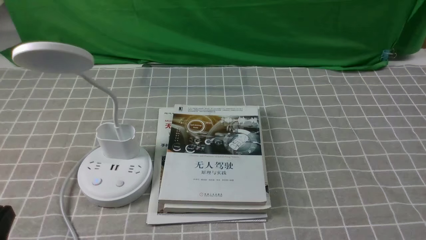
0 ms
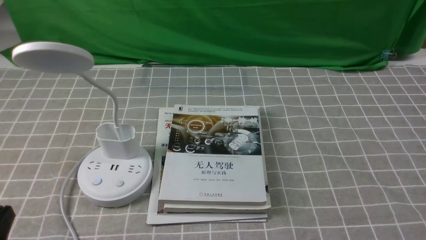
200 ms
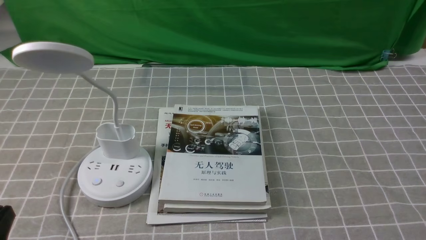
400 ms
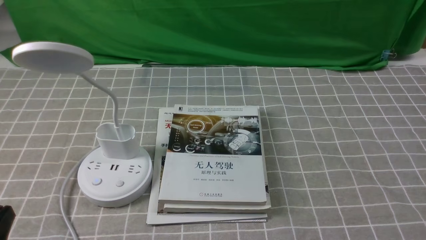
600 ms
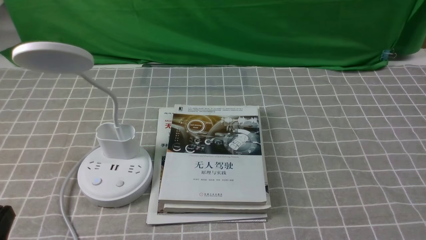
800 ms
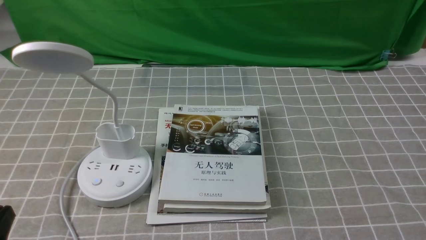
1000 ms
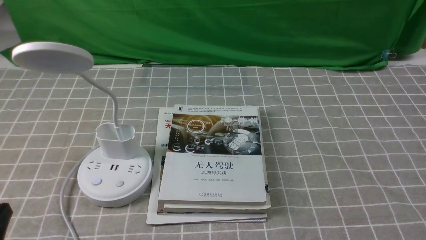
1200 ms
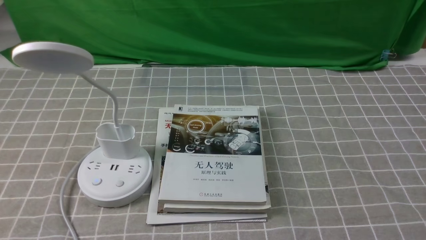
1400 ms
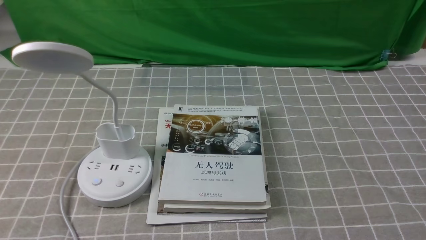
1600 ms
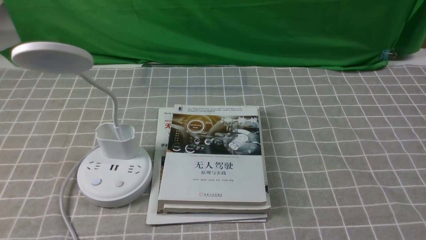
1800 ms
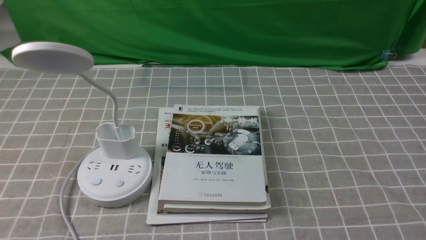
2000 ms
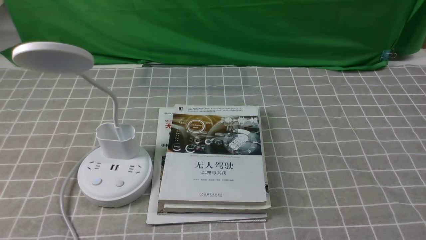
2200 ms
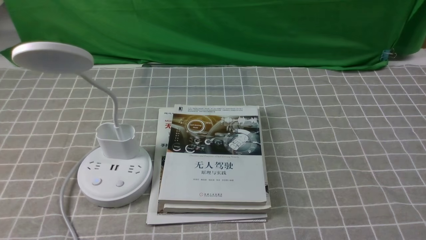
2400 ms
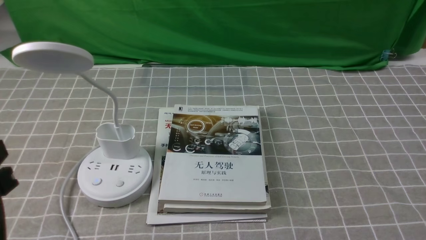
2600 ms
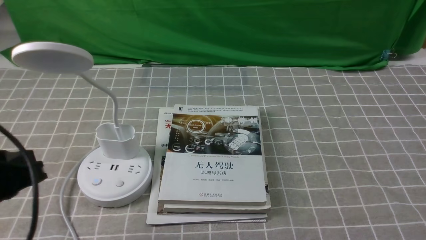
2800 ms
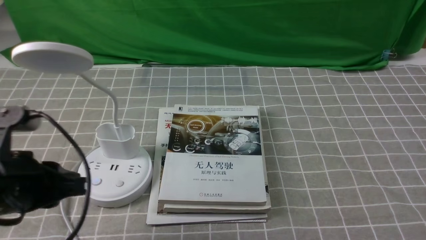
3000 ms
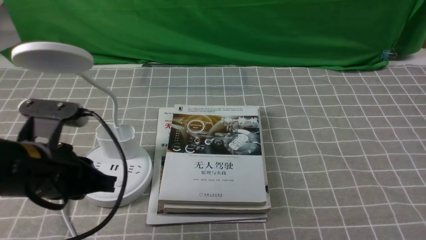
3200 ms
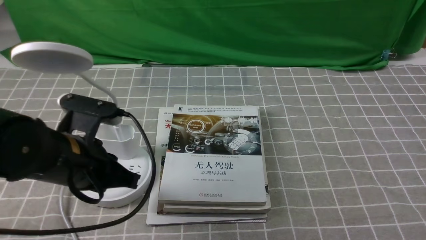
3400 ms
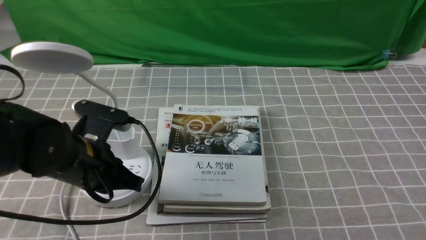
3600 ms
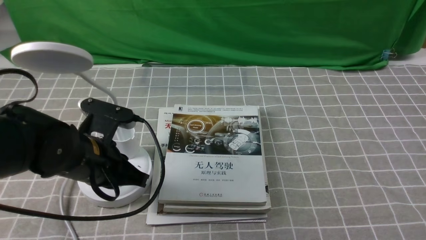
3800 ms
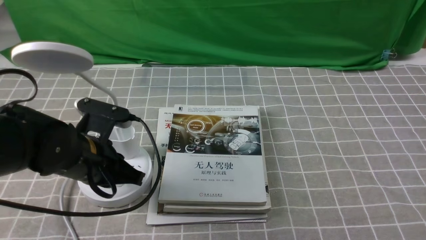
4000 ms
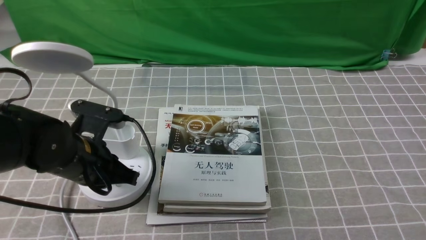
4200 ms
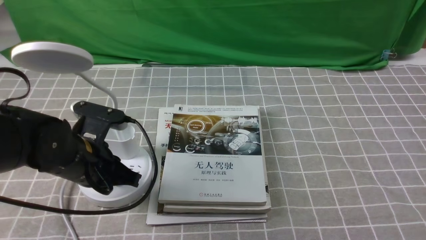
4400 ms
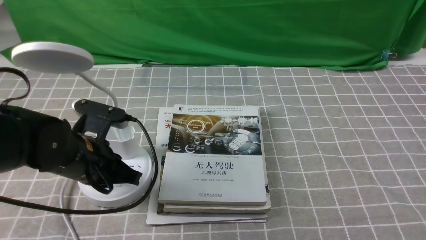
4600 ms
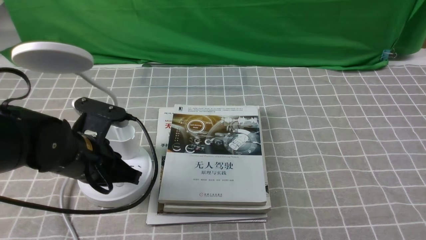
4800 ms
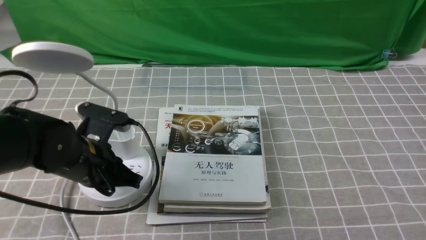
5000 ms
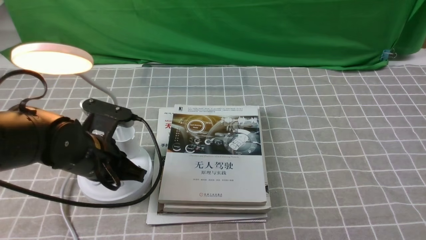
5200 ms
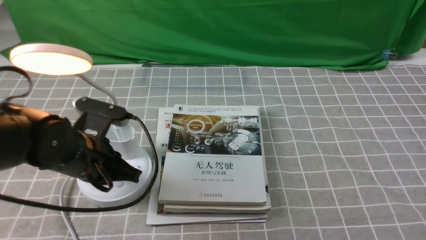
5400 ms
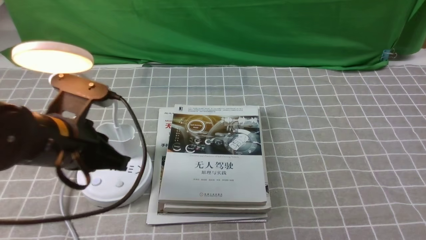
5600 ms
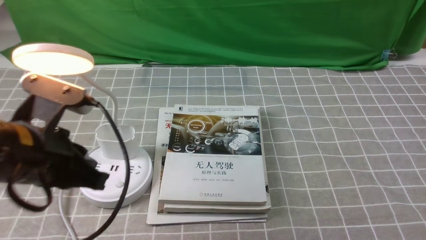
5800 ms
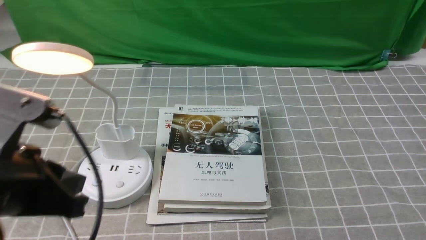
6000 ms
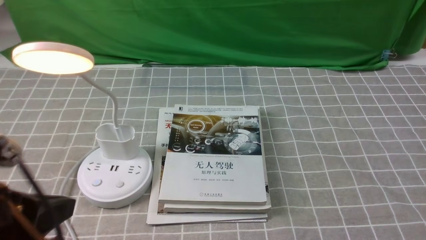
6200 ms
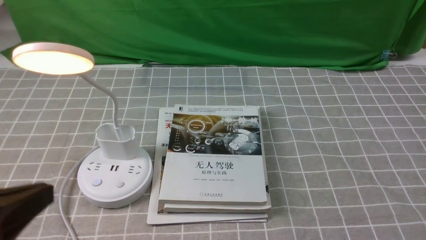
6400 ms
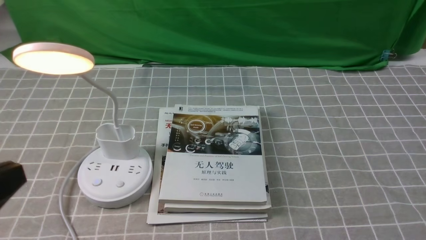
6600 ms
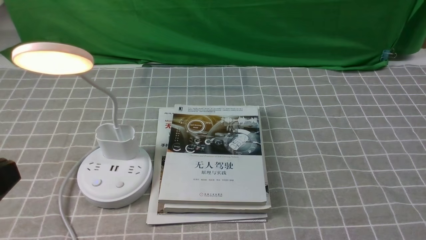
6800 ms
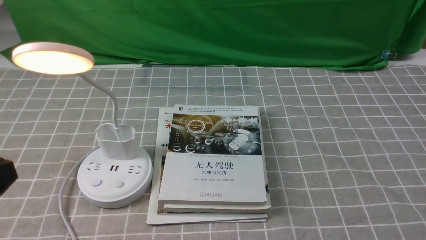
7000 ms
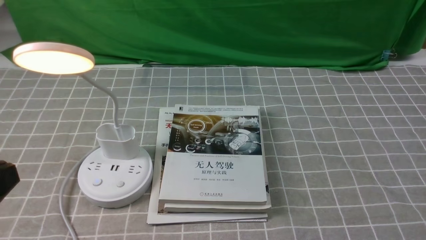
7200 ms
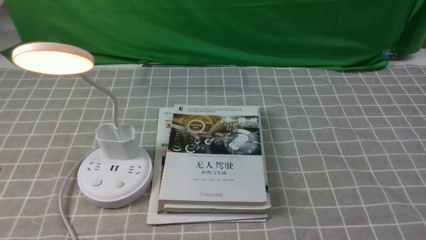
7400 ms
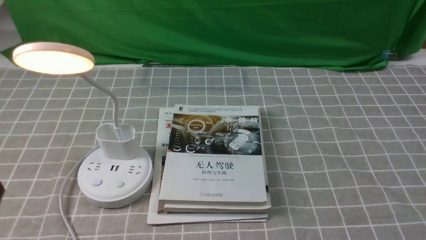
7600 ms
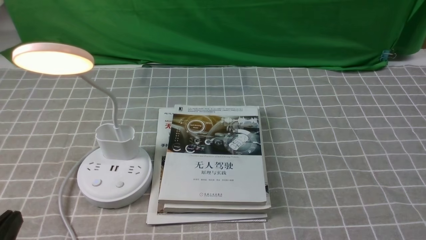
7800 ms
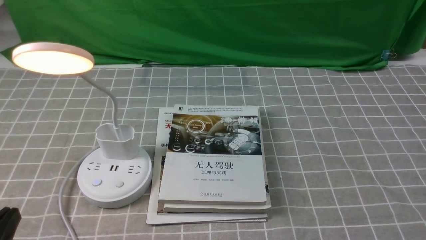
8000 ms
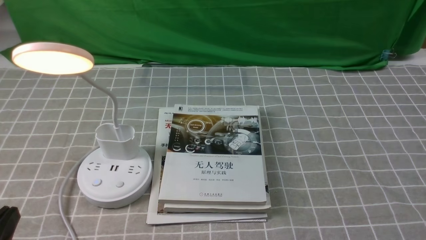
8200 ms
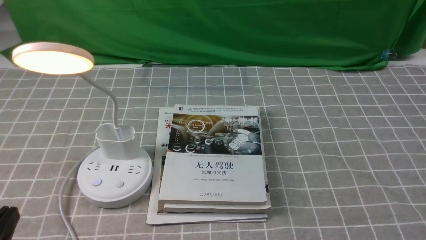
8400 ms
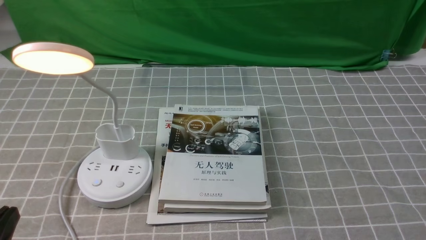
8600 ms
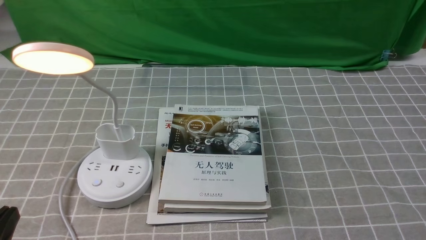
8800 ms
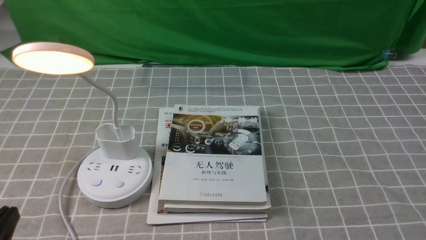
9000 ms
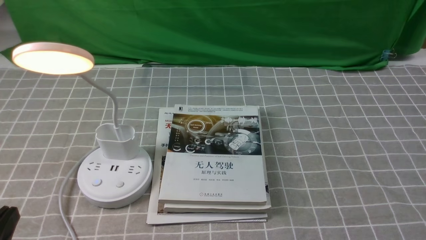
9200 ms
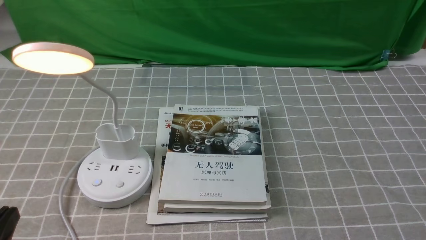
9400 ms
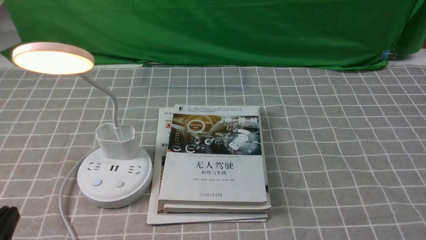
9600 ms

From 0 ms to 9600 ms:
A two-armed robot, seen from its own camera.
Step, from 0 ms to 5400 ms: use the left arm to press the button switch on the lamp holder.
From 1600 ms to 3200 ms: The left gripper moves forward, roughly 15 cm.
From 3200 ms to 4800 ms: The left gripper is displaced forward and downward by approximately 10 cm.
From 4800 ms to 6400 ms: The left gripper moves backward and upward, some 20 cm.
From 6400 ms to 8000 ms: The left gripper shifts some 10 cm downward.
From 8000 ms to 9600 ms: Neither gripper changes place.
